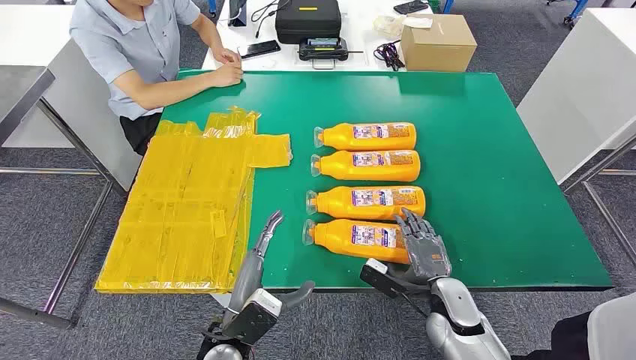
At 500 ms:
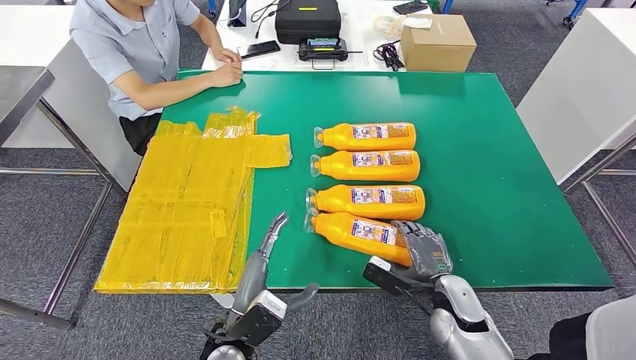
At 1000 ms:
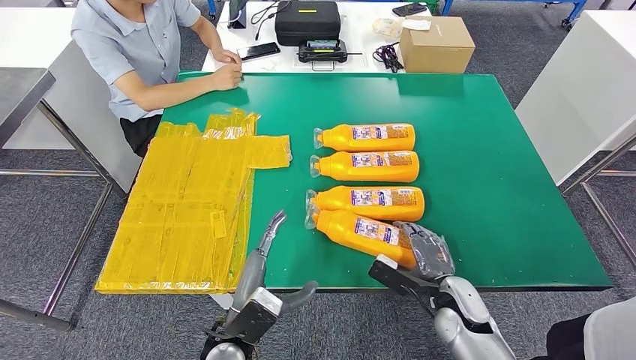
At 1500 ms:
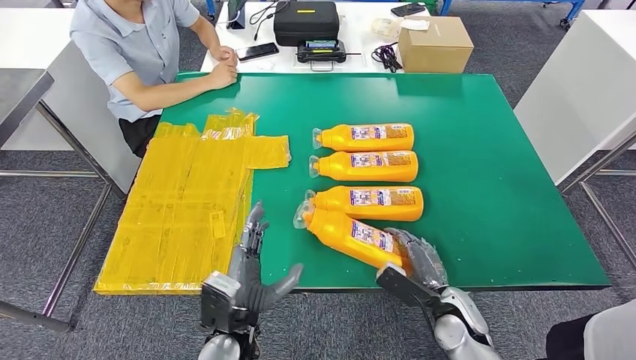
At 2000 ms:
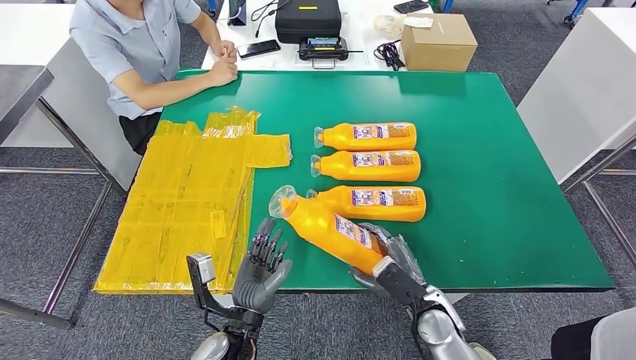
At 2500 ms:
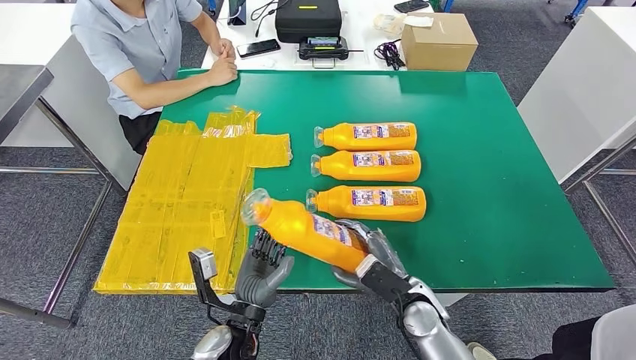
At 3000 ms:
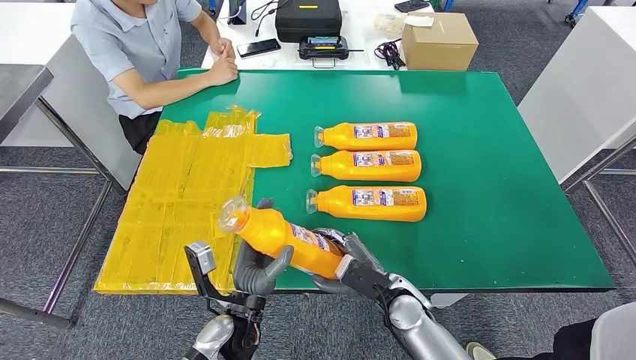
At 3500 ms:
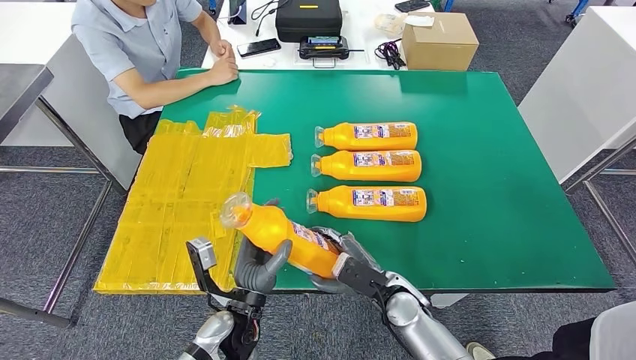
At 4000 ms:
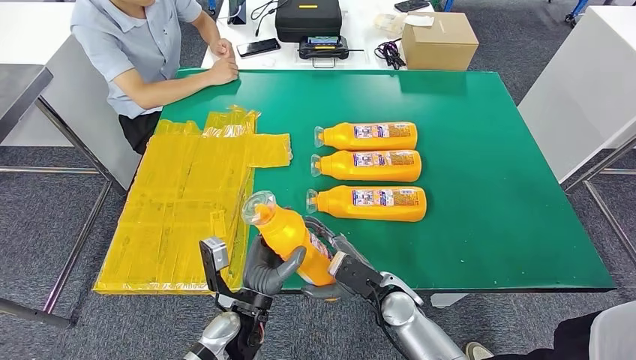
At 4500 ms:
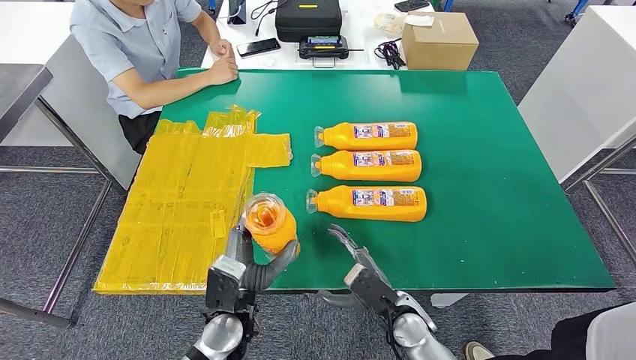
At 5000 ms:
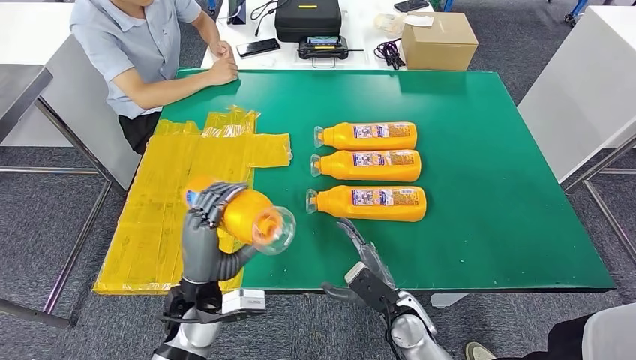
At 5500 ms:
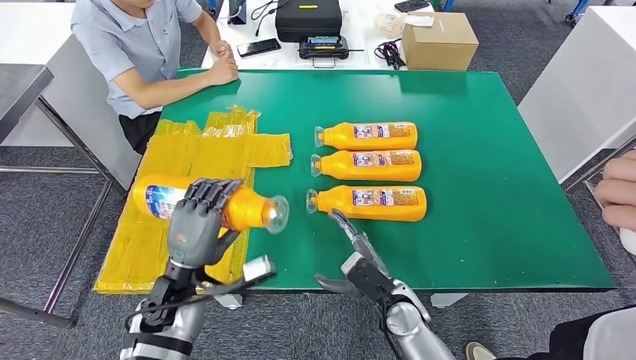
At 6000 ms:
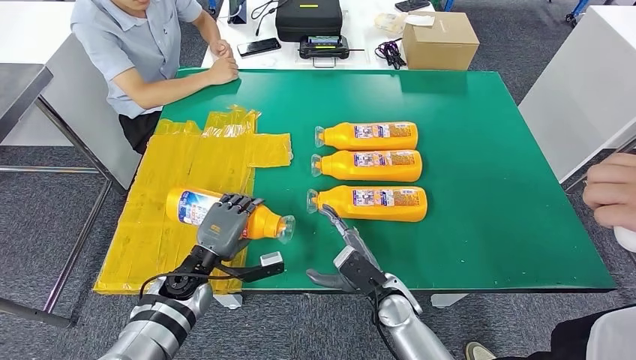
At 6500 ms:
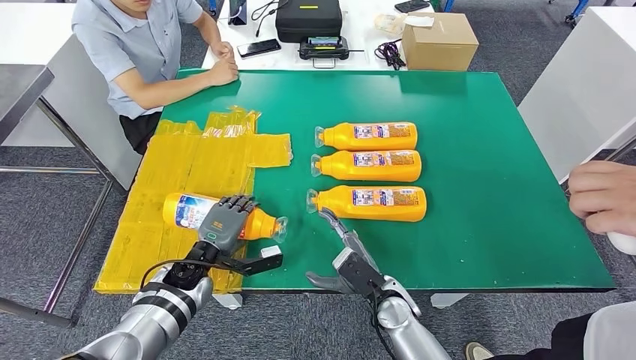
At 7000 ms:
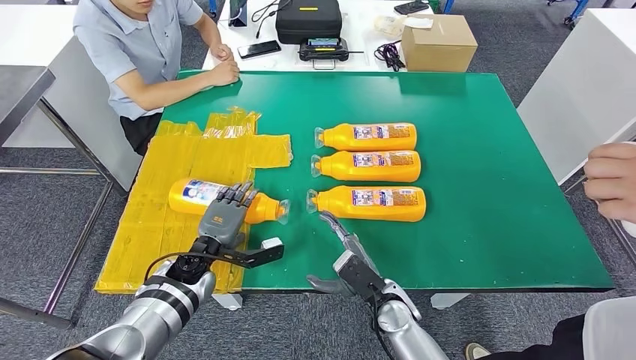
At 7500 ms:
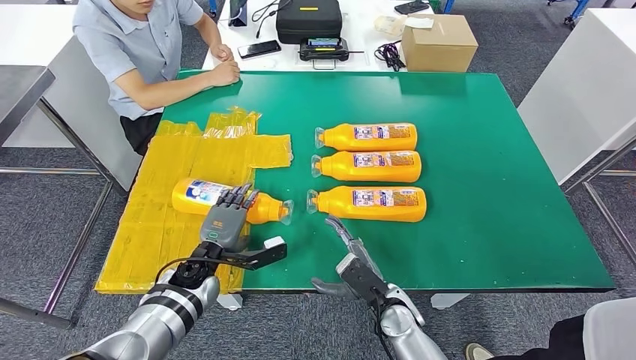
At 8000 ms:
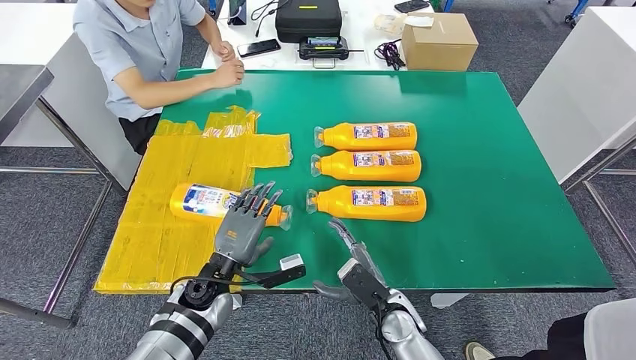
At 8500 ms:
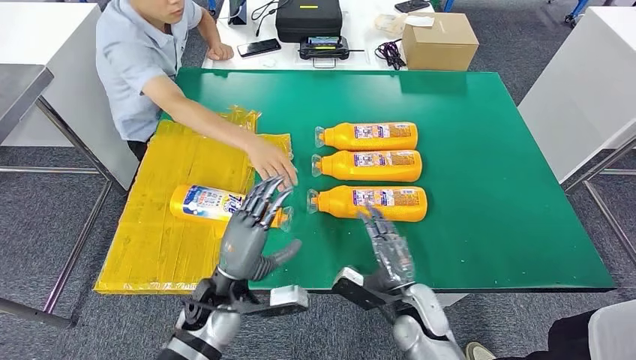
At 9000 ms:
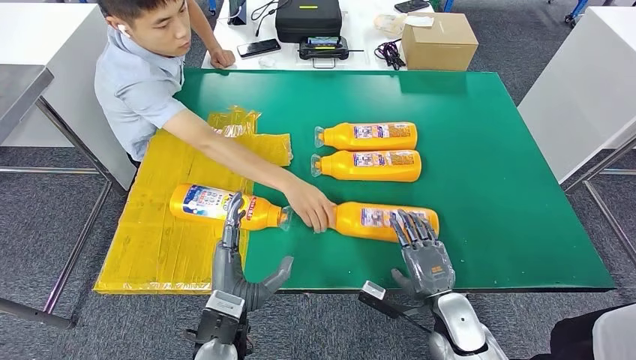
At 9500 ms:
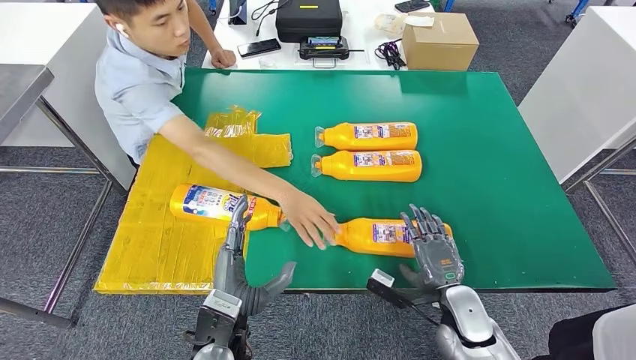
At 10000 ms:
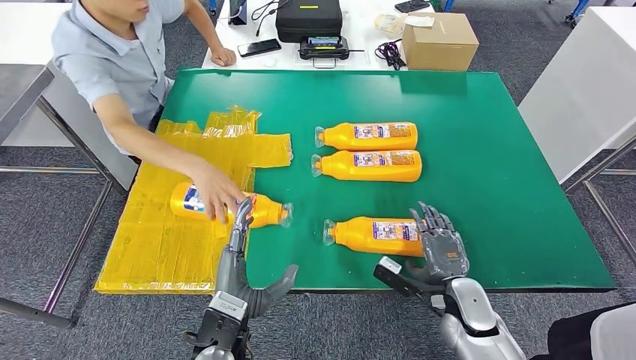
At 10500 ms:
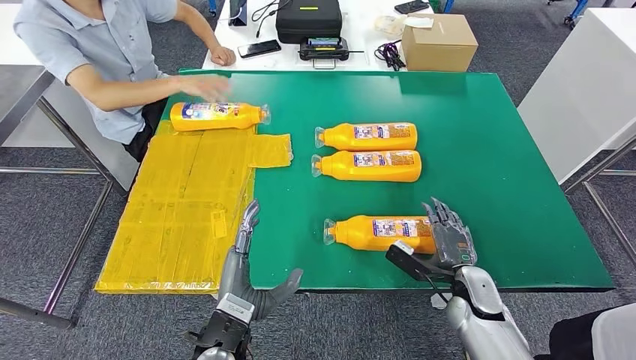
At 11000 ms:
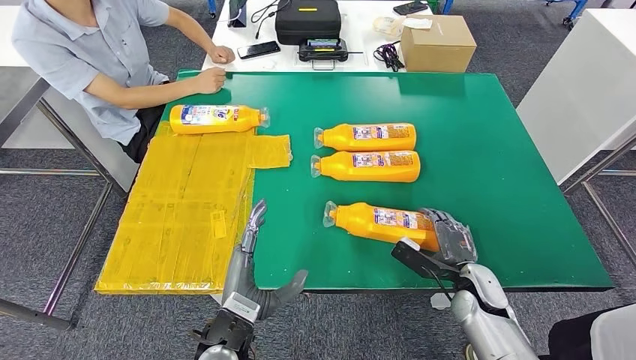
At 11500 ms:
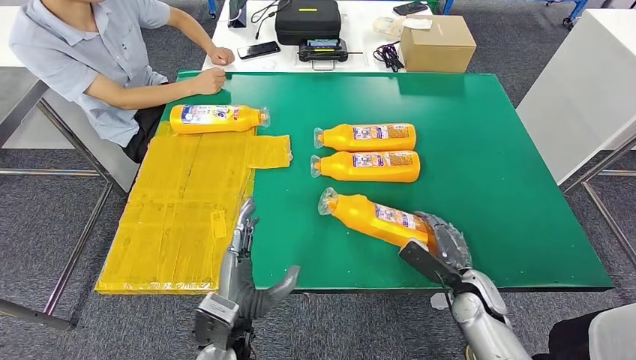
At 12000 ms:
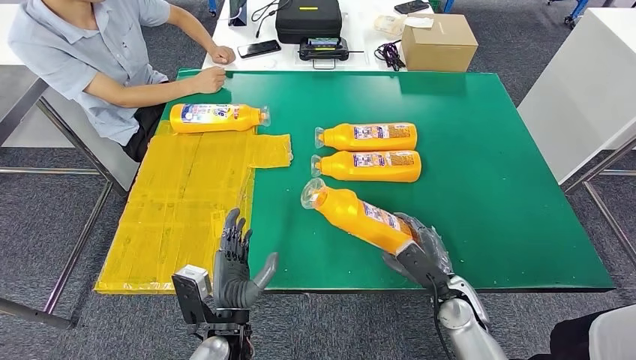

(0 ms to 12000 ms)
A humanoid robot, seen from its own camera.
Step, 0 ms - 3000 ms: Take the fast-moving consumer goods bottle from the table.
Step, 3500 ms - 7000 ms: Flip the fast-moving consumer goods bottle to the front side.
2000 ms - 4000 ms: The right hand travels to the left by approximately 5 cm.
4000 ms - 6000 ms: The left hand moves to the left and forward, about 15 cm.

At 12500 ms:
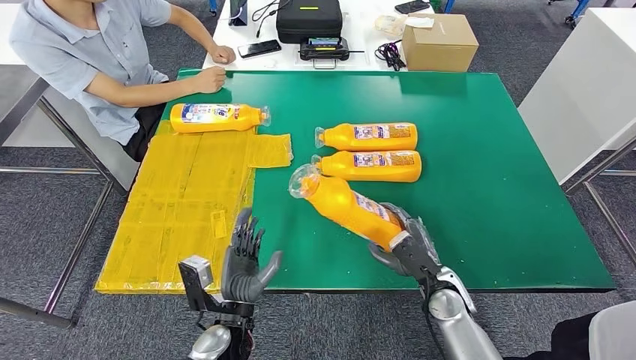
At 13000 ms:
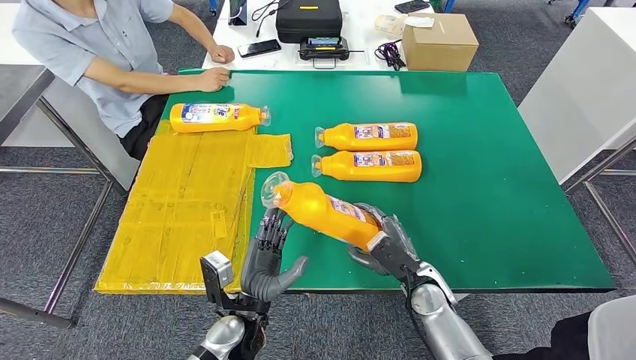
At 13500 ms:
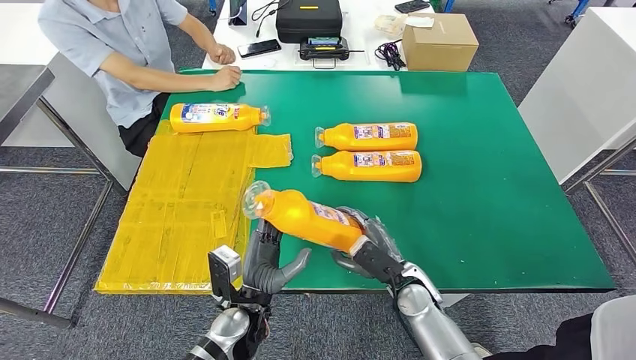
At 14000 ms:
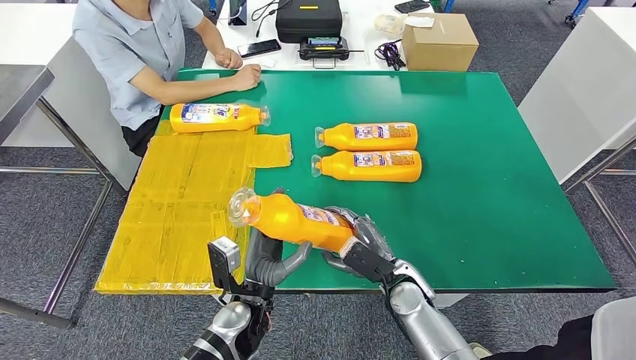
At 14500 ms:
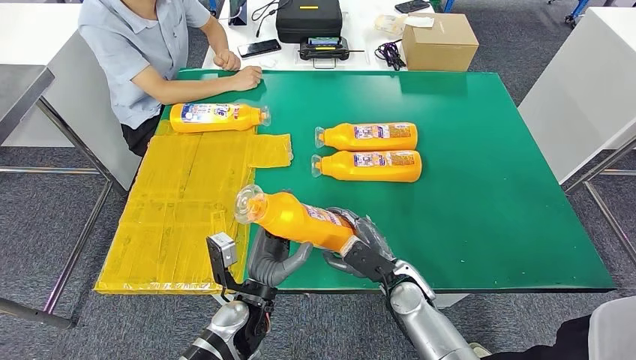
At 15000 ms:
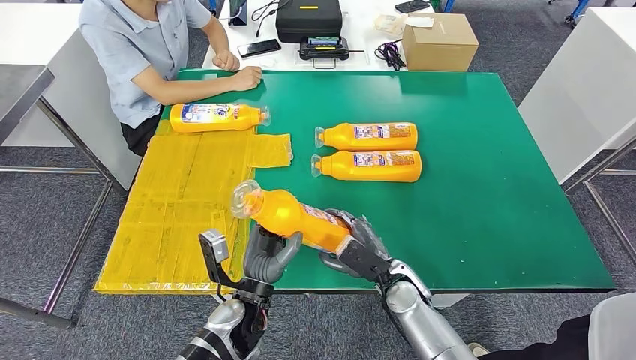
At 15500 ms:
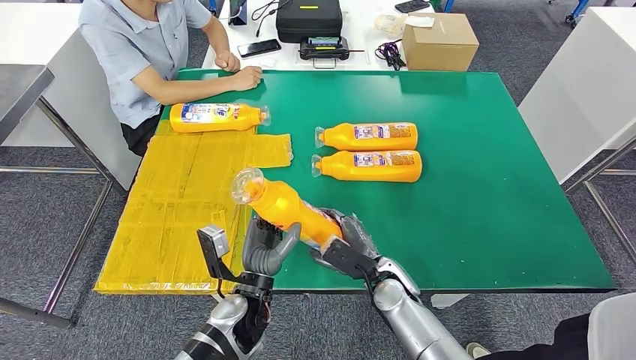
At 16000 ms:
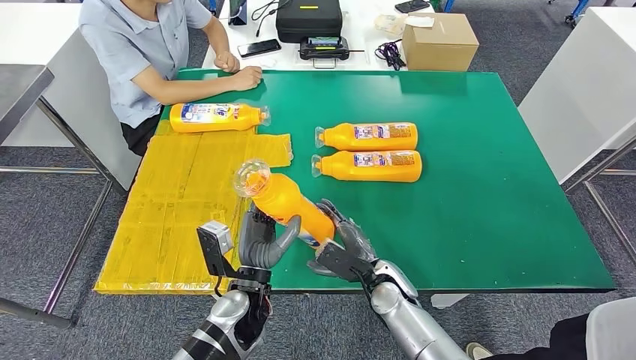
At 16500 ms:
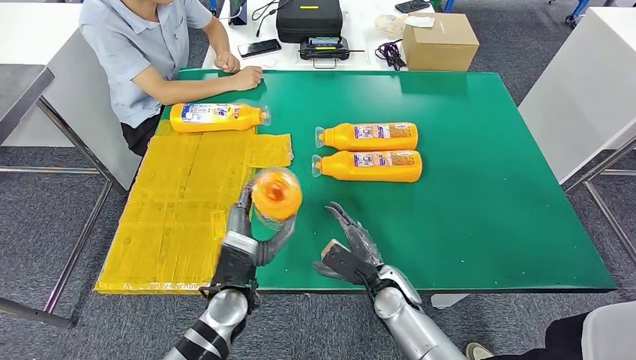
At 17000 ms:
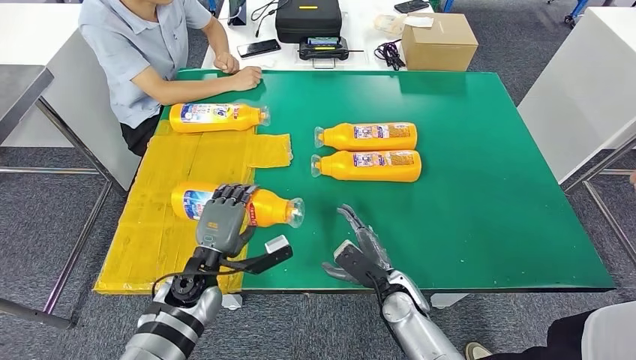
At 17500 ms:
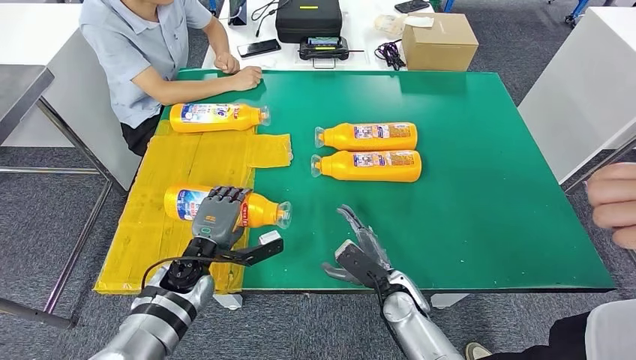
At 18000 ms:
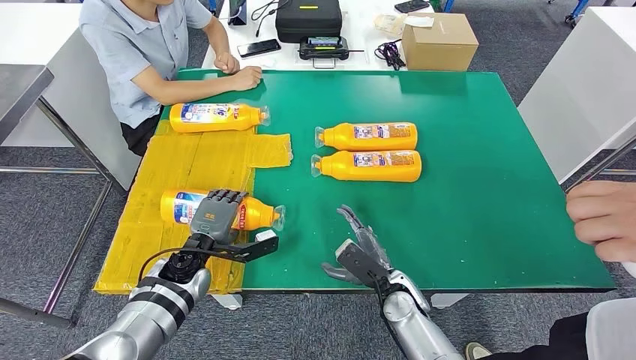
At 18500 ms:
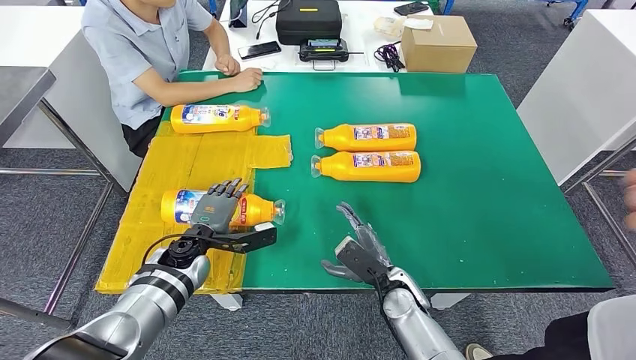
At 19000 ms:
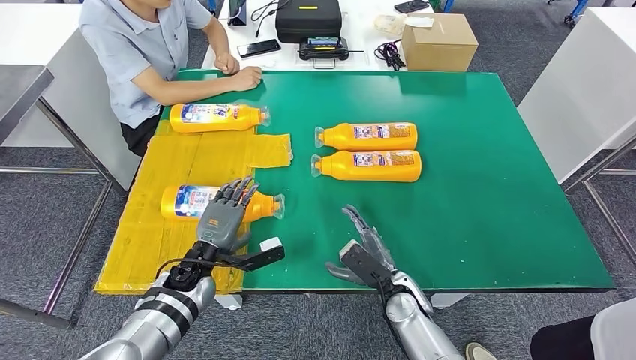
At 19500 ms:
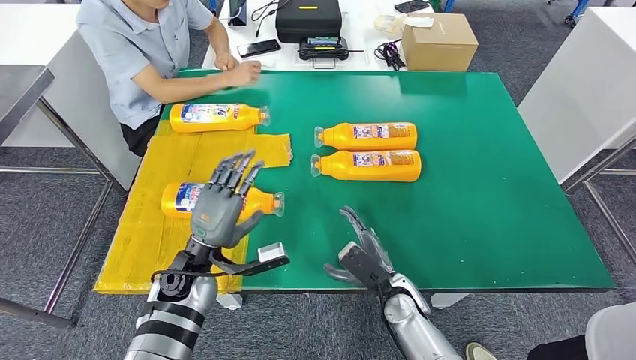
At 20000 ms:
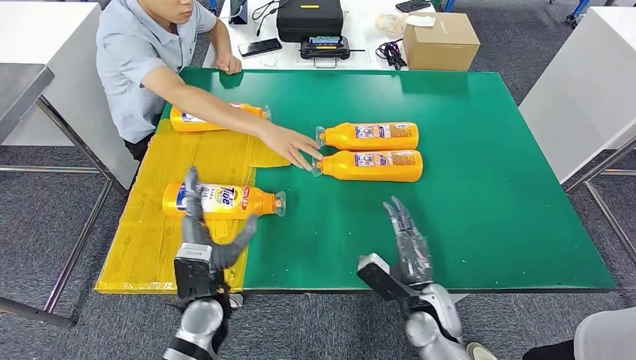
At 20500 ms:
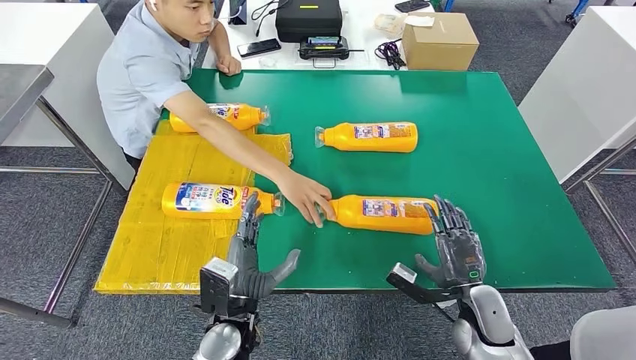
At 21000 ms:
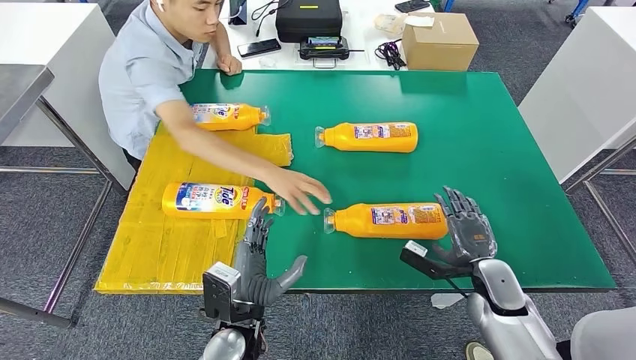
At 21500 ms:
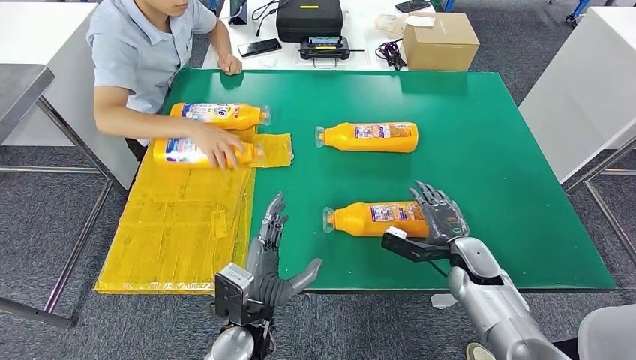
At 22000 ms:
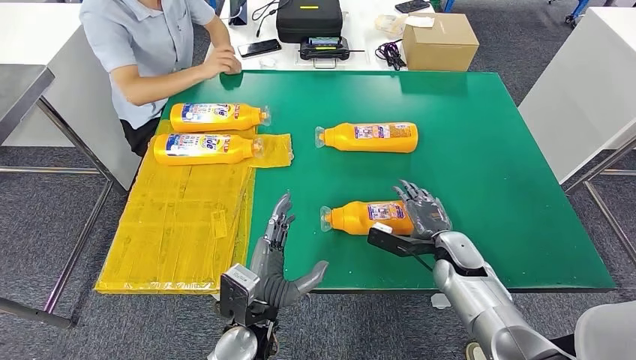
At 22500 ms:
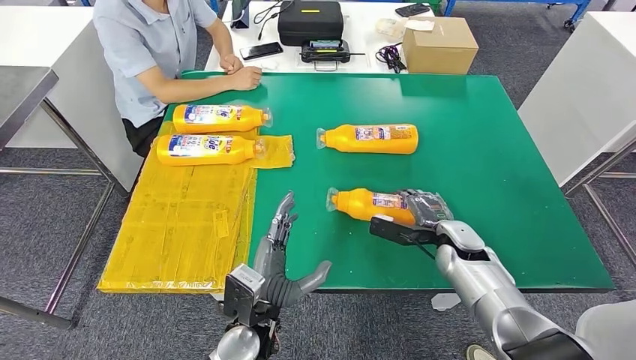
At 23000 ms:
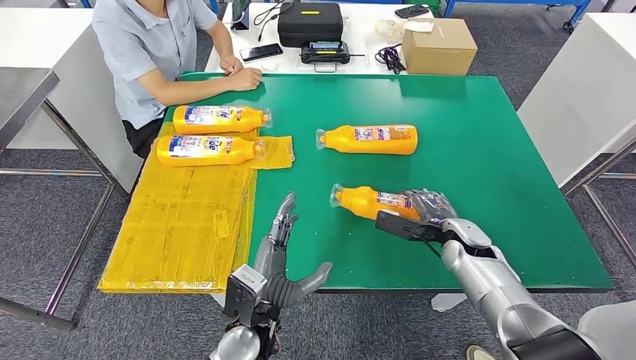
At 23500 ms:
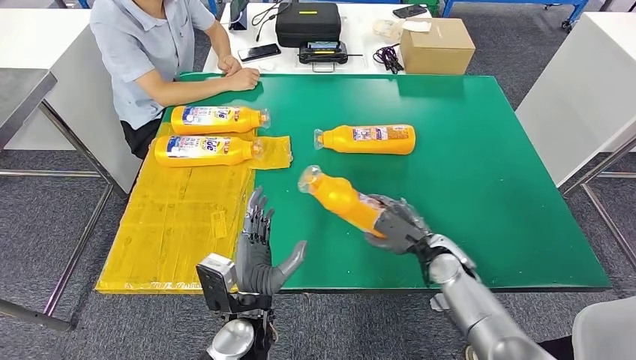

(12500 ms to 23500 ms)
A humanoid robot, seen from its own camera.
Step, 12500 ms - 17000 ms: Flip the fast-moving consumer goods bottle to the front side.
14500 ms - 16000 ms: The hands make only small movements.
16000 ms - 18000 ms: The left hand is displaced to the left and forward by approximately 15 cm.
